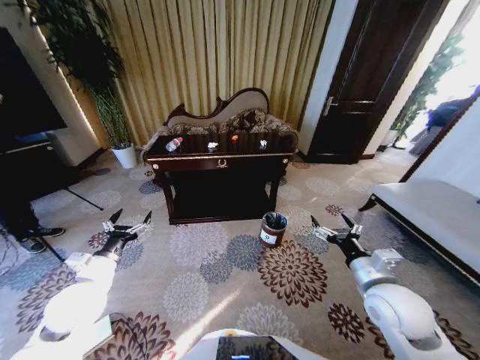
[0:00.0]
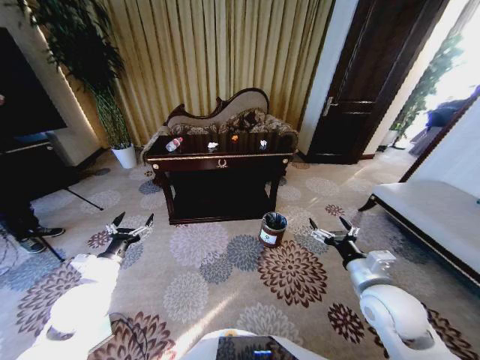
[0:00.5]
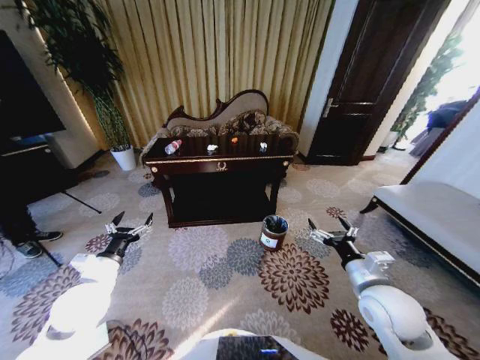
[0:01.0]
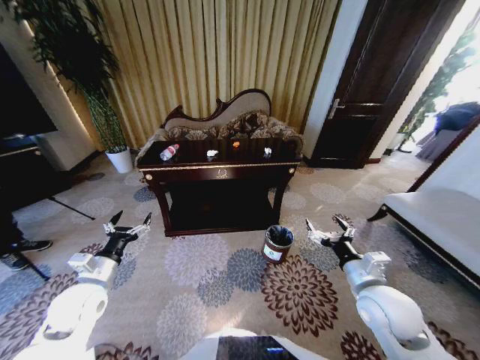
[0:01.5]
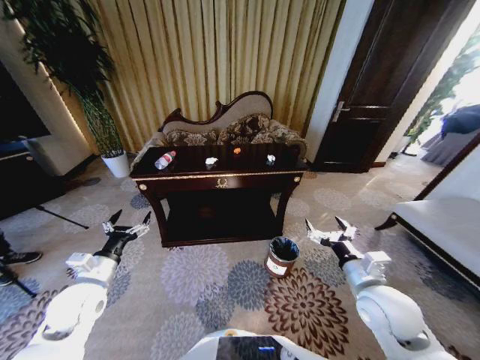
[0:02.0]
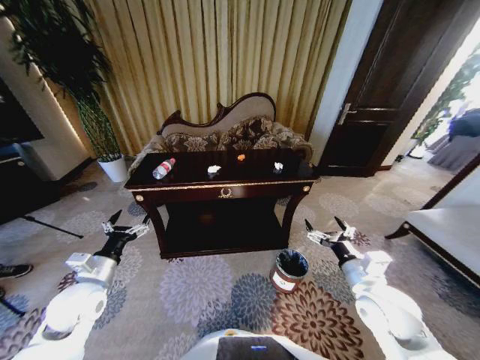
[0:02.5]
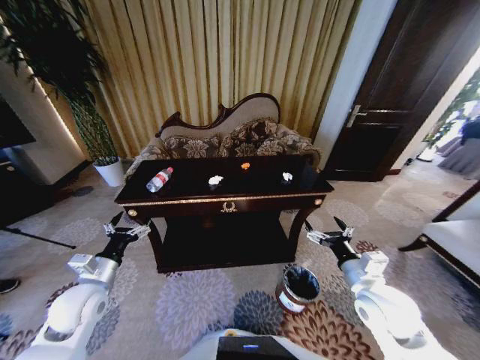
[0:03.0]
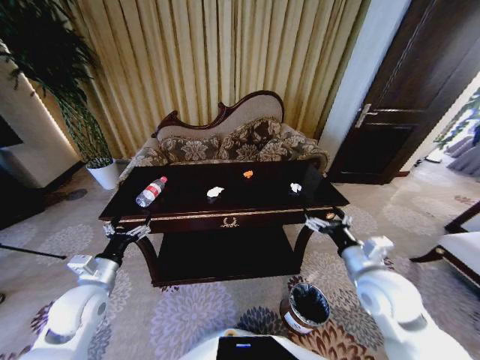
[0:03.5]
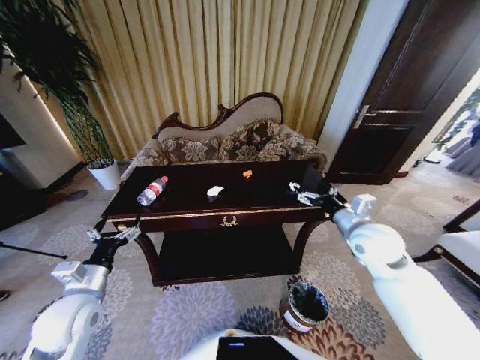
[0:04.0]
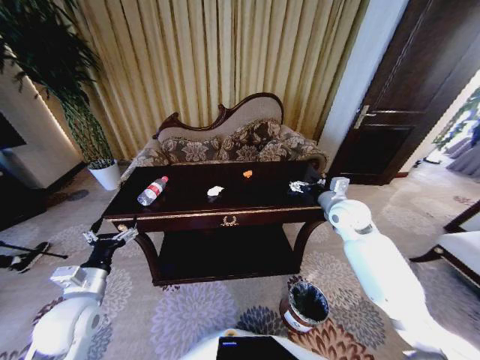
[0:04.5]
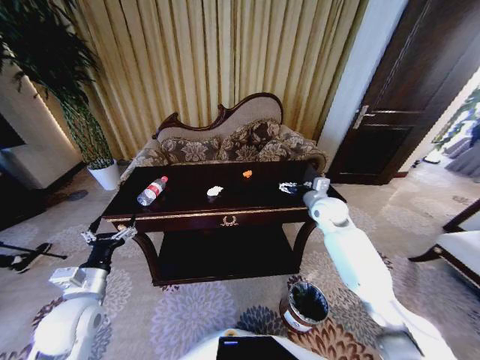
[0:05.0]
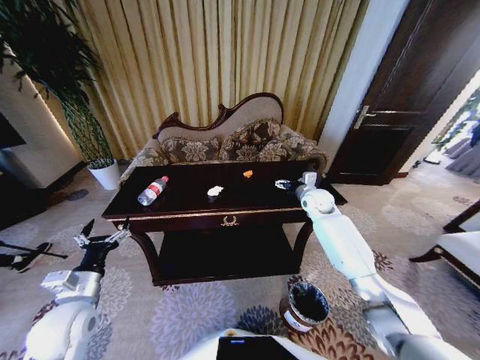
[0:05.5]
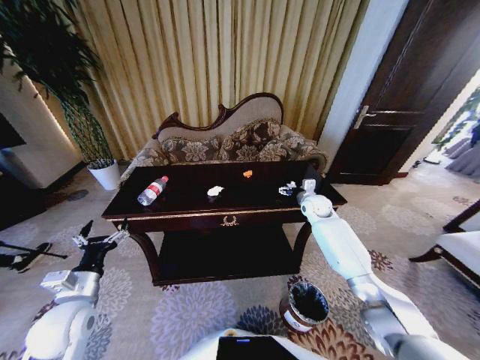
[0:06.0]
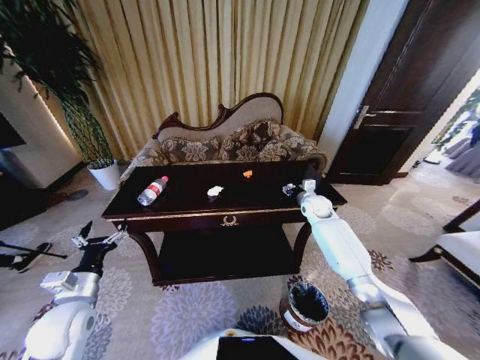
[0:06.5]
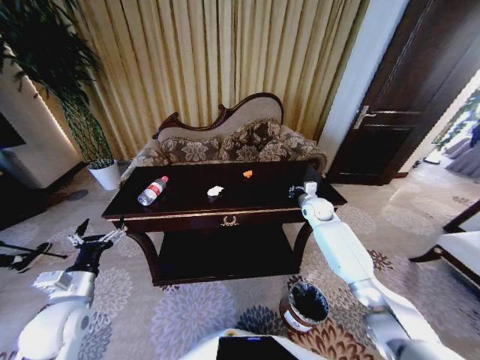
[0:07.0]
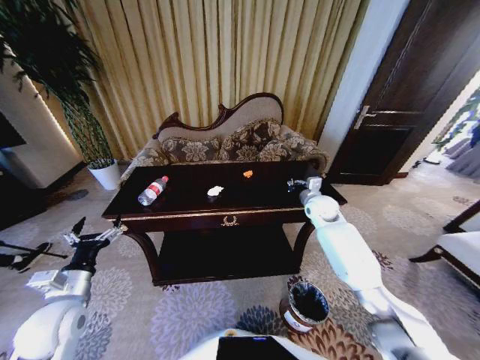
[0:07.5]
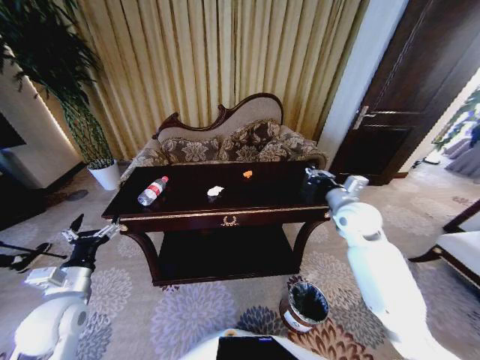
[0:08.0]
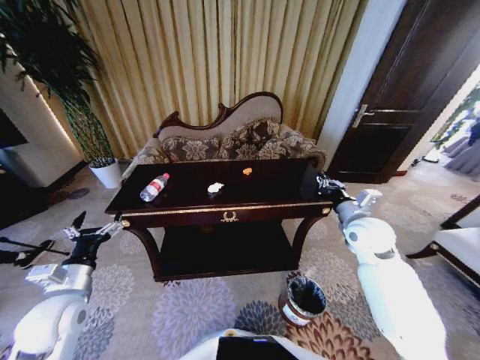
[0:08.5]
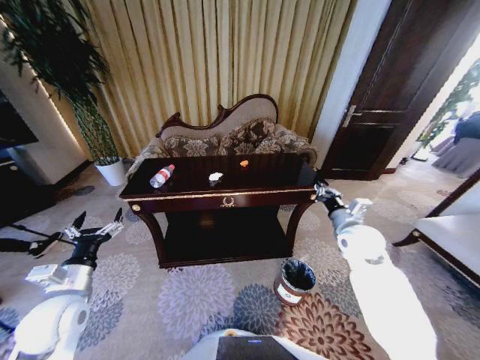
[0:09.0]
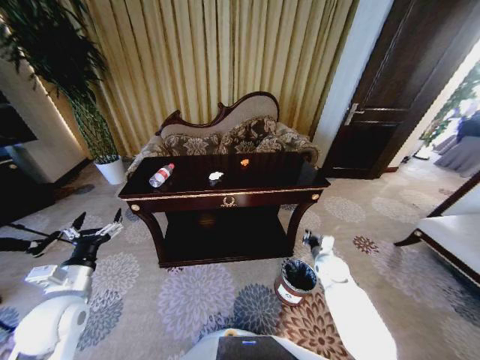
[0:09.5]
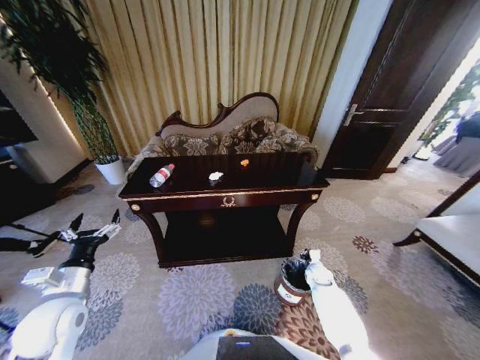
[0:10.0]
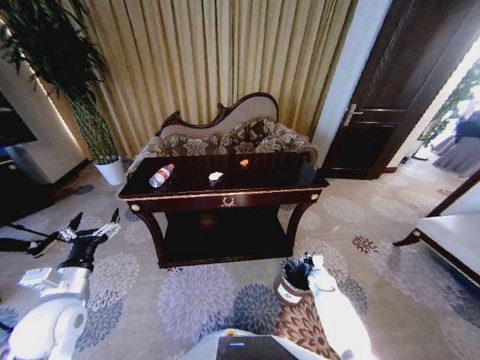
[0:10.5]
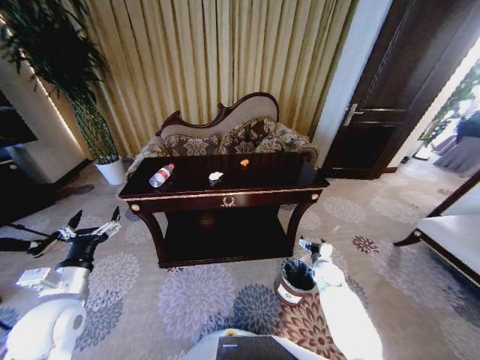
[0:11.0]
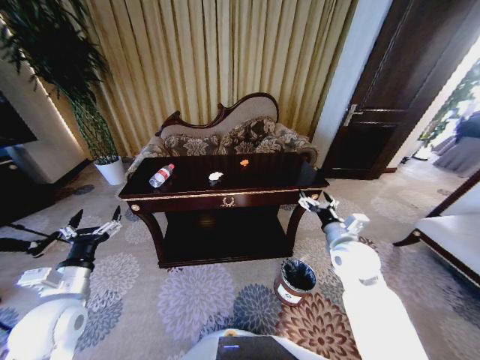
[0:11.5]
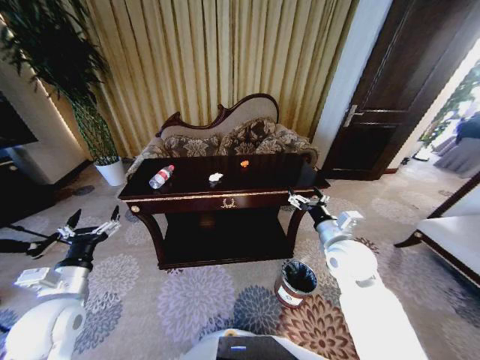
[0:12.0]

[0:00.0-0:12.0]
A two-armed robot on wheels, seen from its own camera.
Task of the whole recording: Move to the front of the table and place the trash on the table into the trash bin.
0:02.0 to 0:04.0: The right gripper is displaced forward and upward by roughly 15 cm.
0:04.0 to 0:06.0: The right gripper is displaced forward and downward by approximately 25 cm.
0:06.0 to 0:08.0: The right gripper travels backward and upward by some 15 cm, and closes up.
0:08.0 to 0:10.0: The right gripper heads downward, covering roughly 35 cm.
0:10.0 to 0:12.0: The right gripper moves upward, about 30 cm, and opens its fingers.

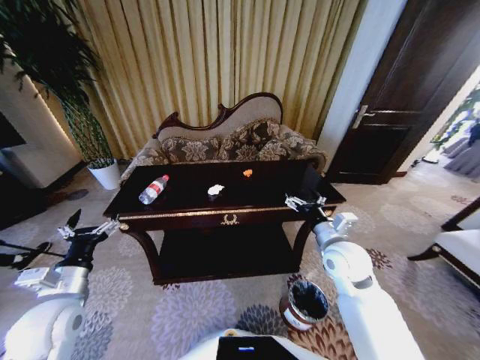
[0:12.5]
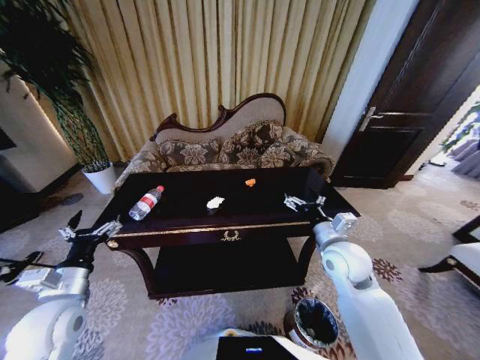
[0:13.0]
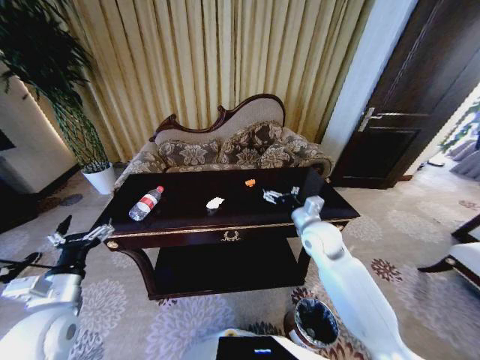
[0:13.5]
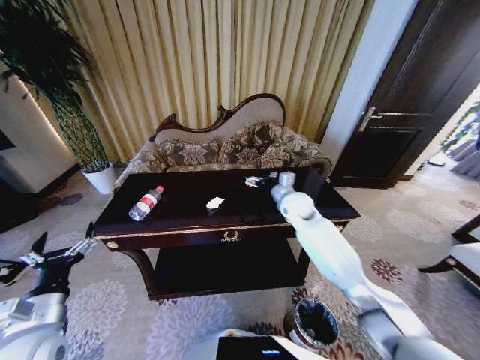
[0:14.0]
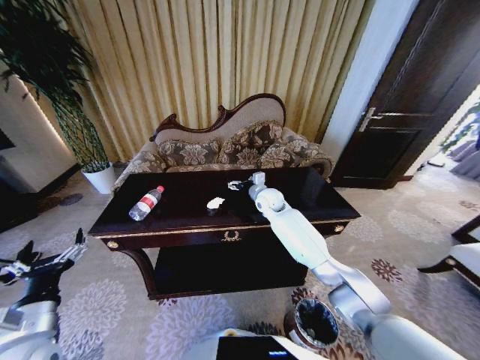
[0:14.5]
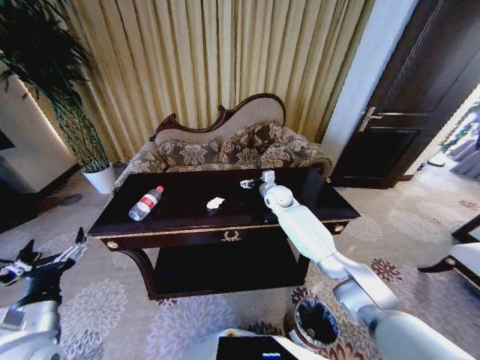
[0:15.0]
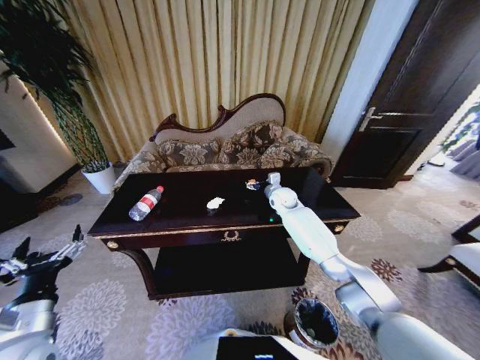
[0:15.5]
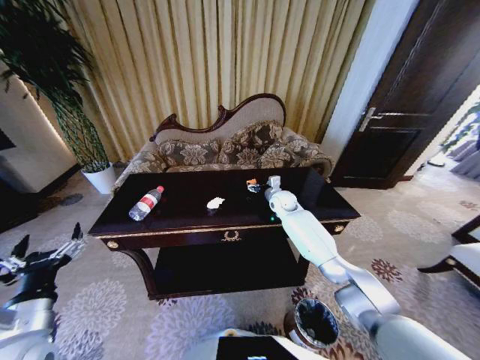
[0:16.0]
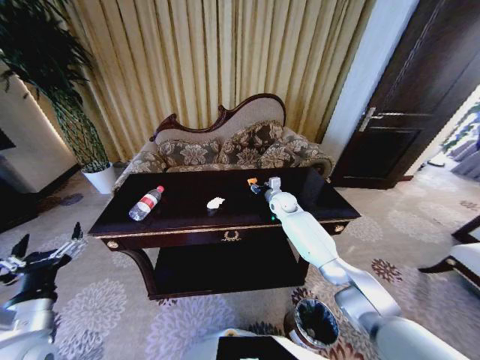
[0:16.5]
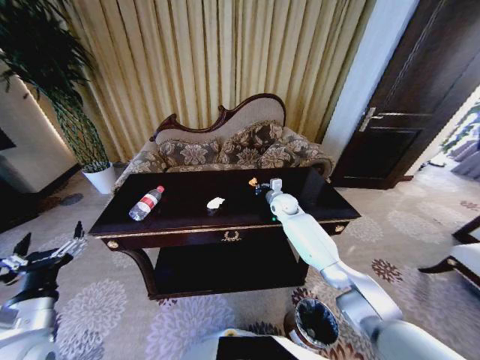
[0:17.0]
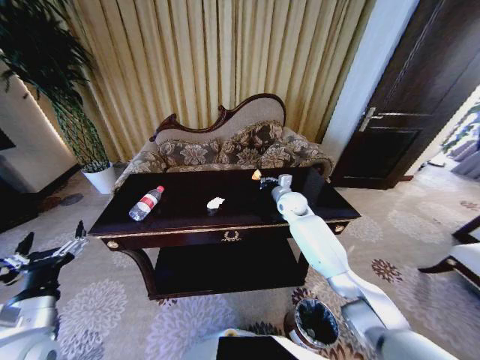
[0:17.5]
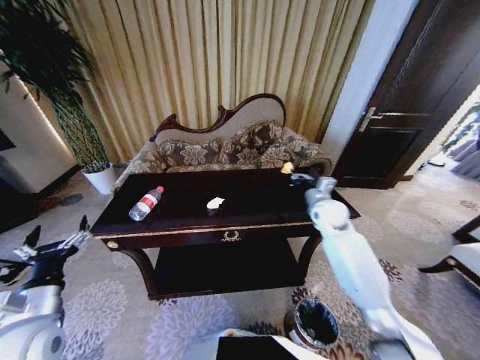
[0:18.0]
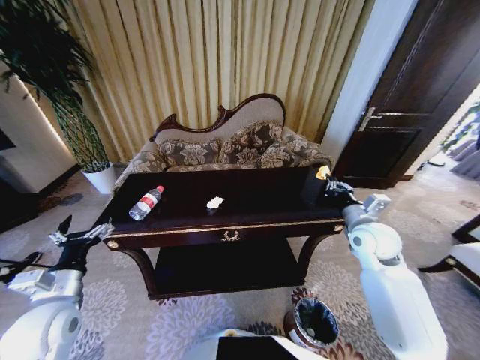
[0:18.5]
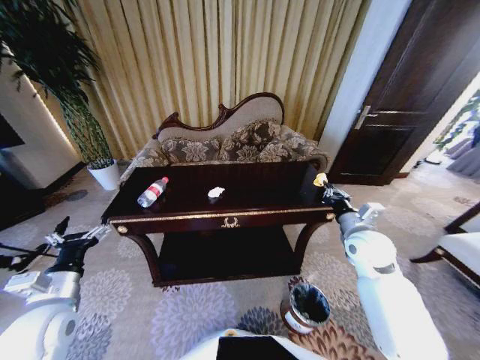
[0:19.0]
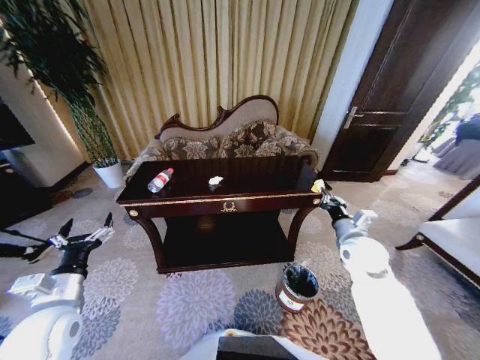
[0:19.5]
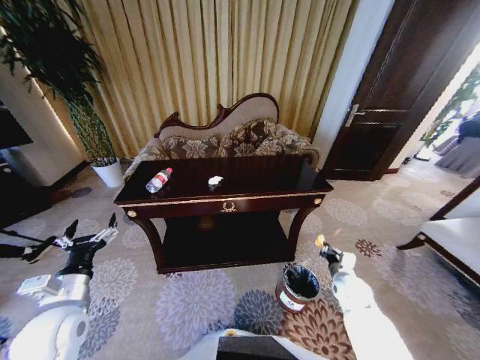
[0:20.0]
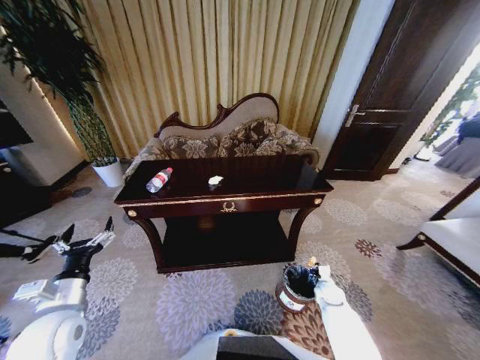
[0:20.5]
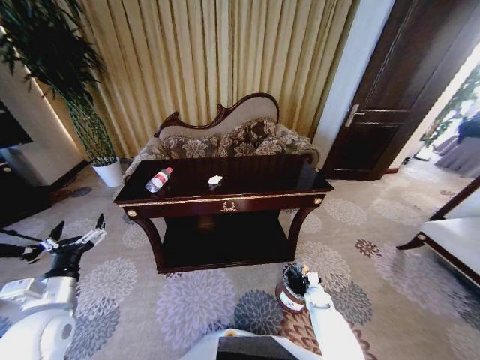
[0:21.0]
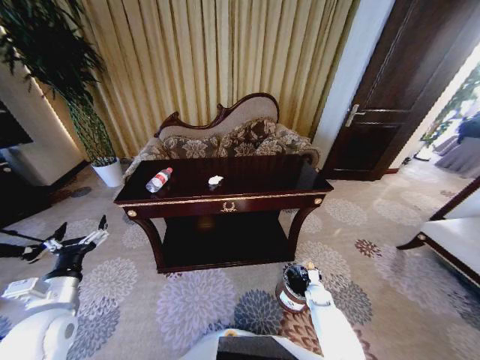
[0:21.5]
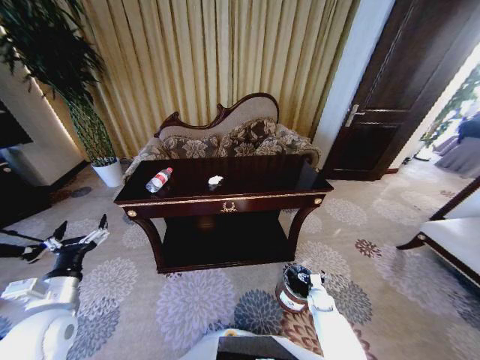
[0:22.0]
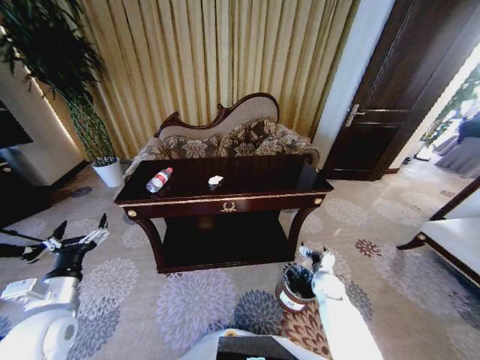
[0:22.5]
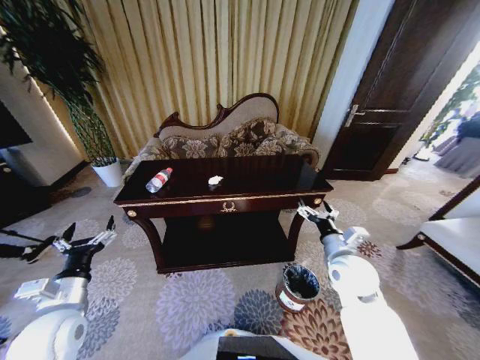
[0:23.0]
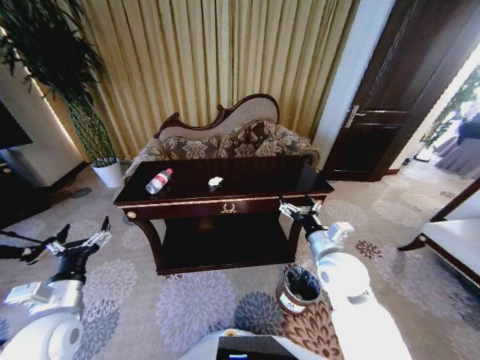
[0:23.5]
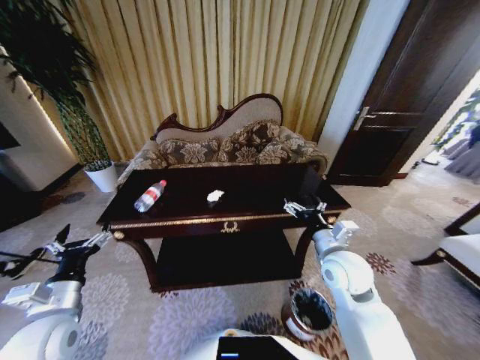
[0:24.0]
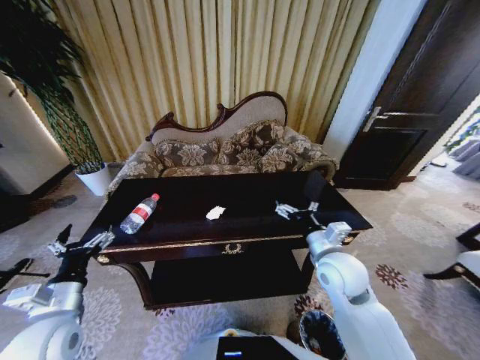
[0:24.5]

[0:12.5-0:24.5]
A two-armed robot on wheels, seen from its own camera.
Task of the whole recording: Move to the front of the table and place the trash on the table into the trash bin.
0:12.5 to 0:14.5: The right gripper moves forward and to the left, about 25 cm. Meanwhile the left gripper heads backward, covering about 5 cm.
0:14.5 to 0:16.5: The right gripper travels to the right by approximately 5 cm, and closes.
0:16.5 to 0:18.5: The right gripper shifts approximately 30 cm backward, to the right and upward, and closes up. The left gripper shifts some 5 cm forward.
0:18.5 to 0:20.5: The right gripper heads downward, covering about 35 cm.
0:20.5 to 0:22.5: The right gripper travels downward and back again, about 5 cm each way, and opens.
0:22.5 to 0:24.5: The right gripper moves upward and to the left, approximately 30 cm.

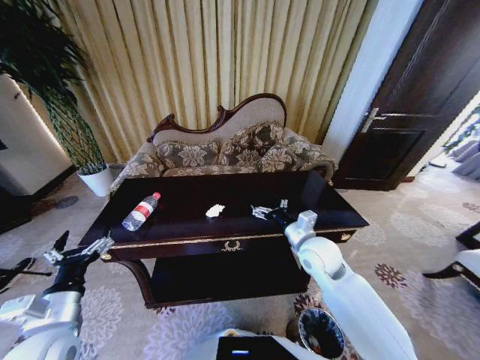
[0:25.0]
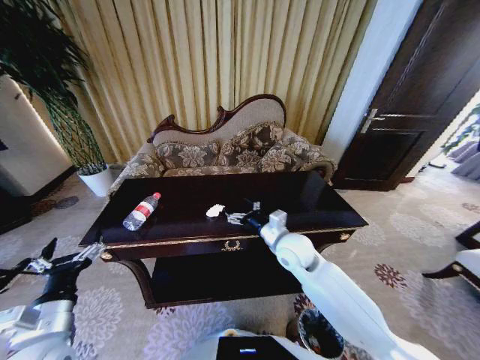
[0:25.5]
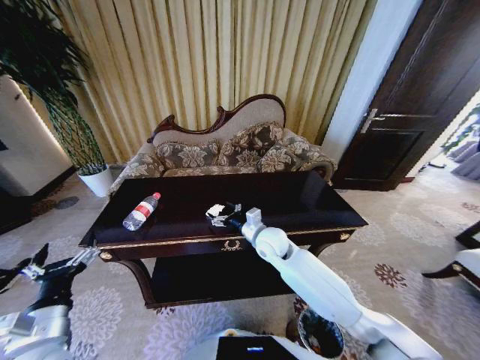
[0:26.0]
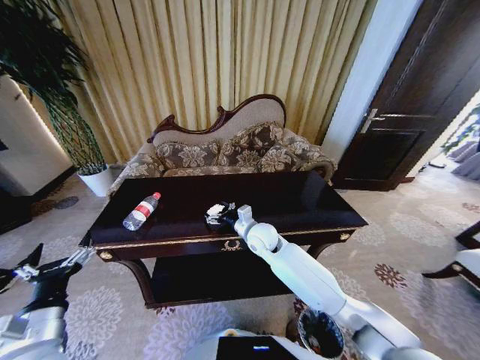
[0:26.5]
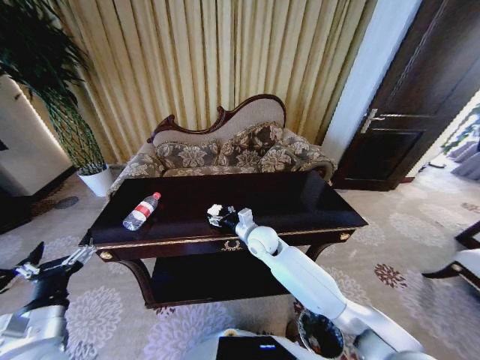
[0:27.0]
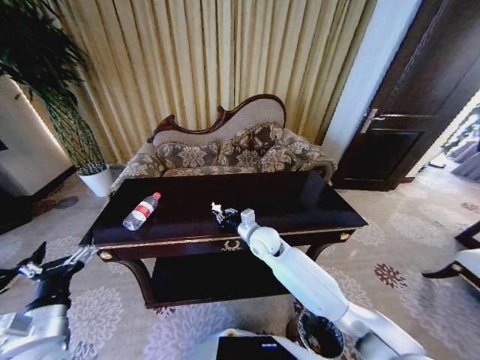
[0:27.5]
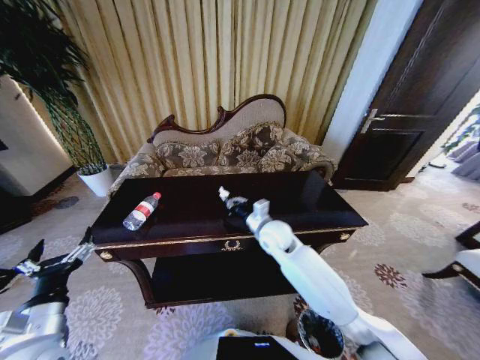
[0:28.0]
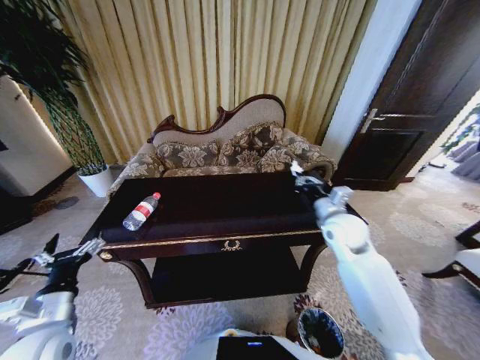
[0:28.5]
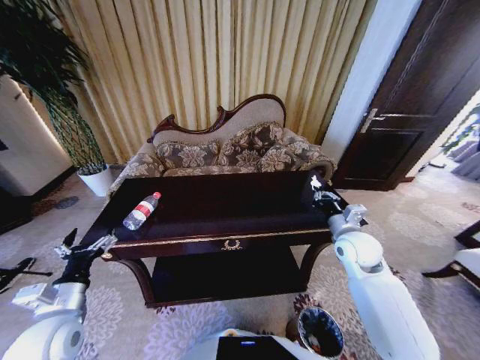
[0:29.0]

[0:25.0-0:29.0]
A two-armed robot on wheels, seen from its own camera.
Task of the whole recording: Move to the front of the table and place the trash on the table into the trash bin.
0:25.0 to 0:27.0: The right gripper shifts some 15 cm to the left, forward and downward.
0:27.0 to 0:29.0: The right gripper is displaced to the right by about 25 cm, and closes up, while the left gripper changes place by roughly 5 cm.
